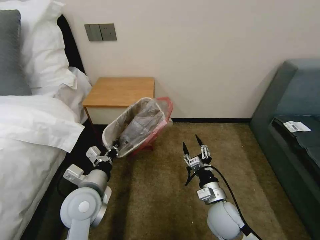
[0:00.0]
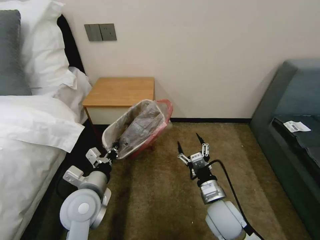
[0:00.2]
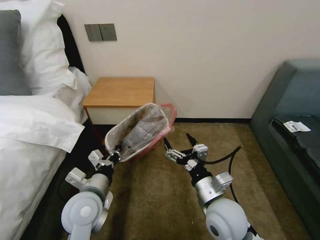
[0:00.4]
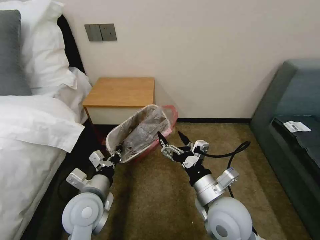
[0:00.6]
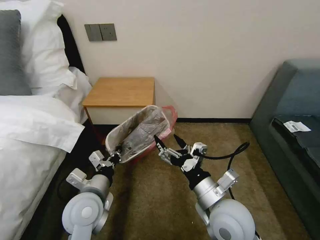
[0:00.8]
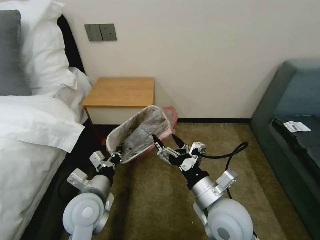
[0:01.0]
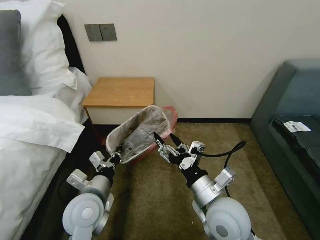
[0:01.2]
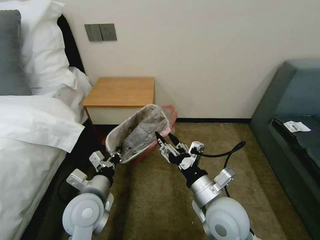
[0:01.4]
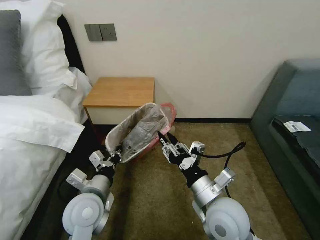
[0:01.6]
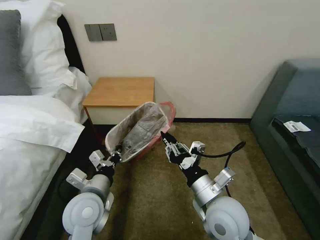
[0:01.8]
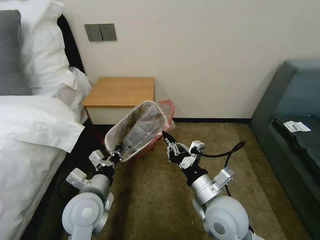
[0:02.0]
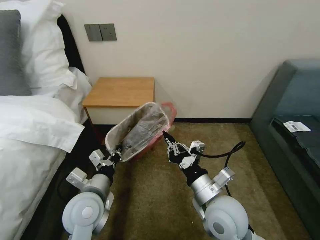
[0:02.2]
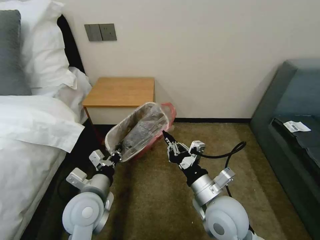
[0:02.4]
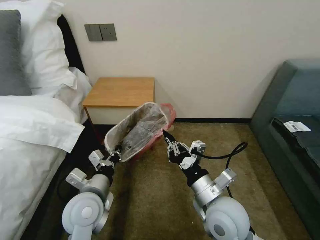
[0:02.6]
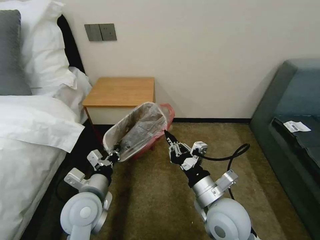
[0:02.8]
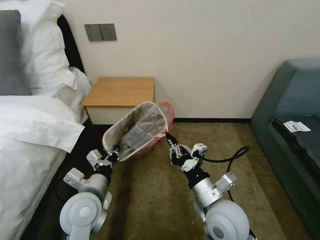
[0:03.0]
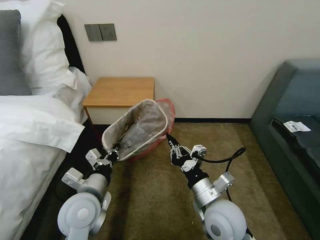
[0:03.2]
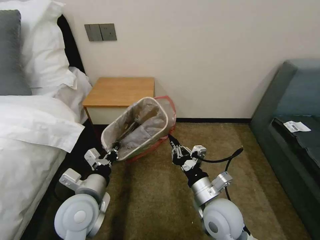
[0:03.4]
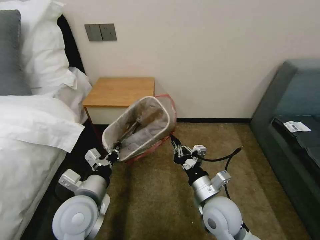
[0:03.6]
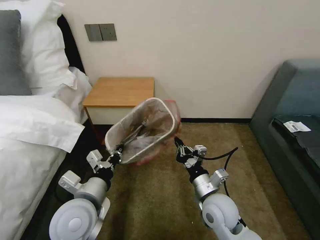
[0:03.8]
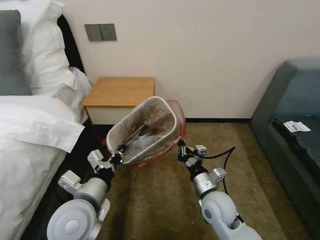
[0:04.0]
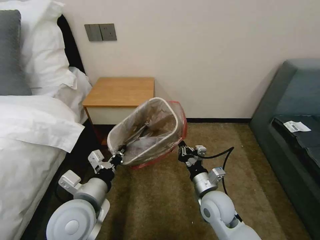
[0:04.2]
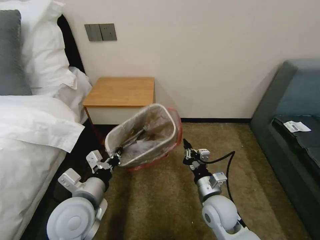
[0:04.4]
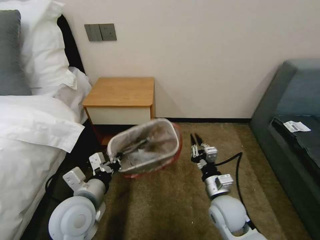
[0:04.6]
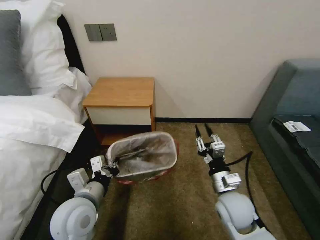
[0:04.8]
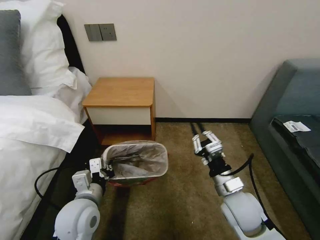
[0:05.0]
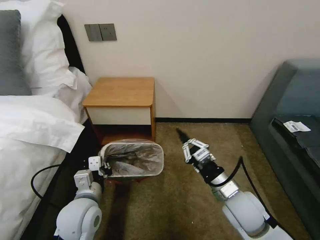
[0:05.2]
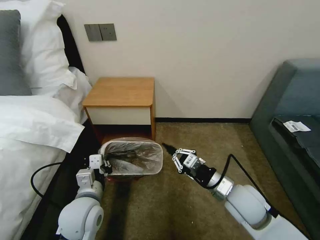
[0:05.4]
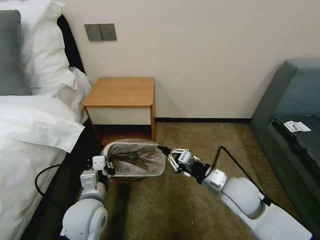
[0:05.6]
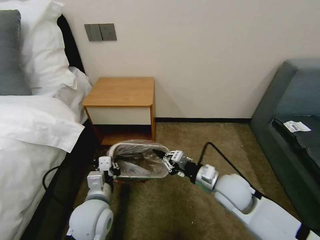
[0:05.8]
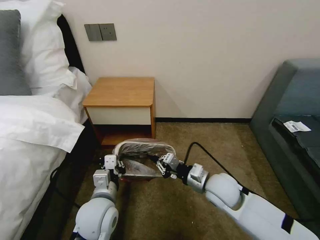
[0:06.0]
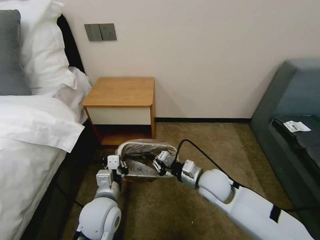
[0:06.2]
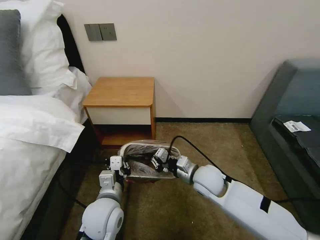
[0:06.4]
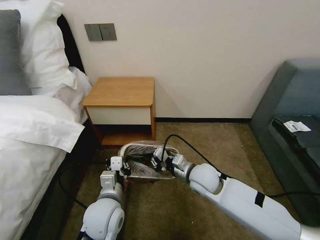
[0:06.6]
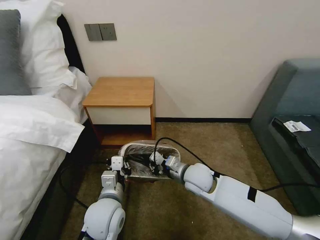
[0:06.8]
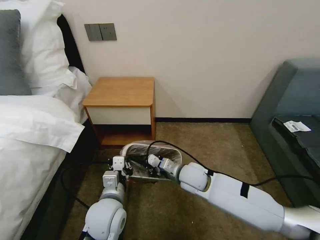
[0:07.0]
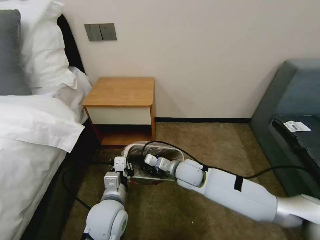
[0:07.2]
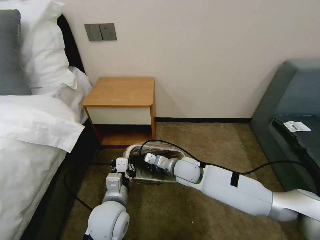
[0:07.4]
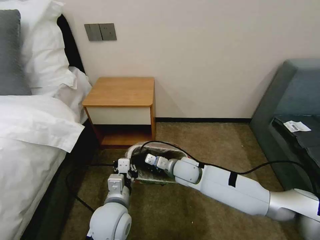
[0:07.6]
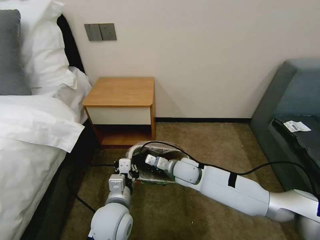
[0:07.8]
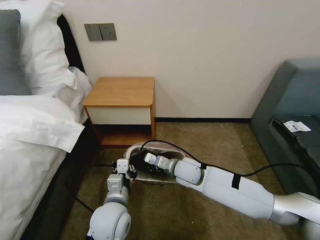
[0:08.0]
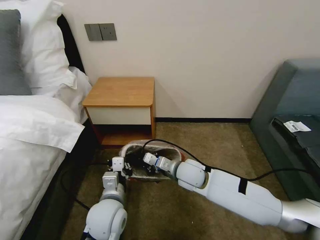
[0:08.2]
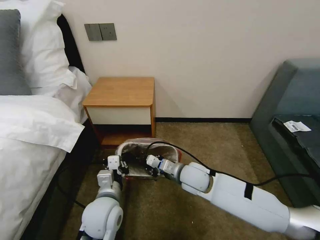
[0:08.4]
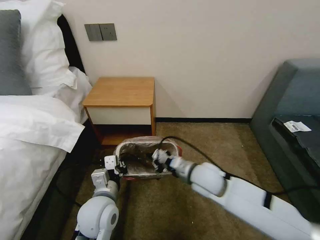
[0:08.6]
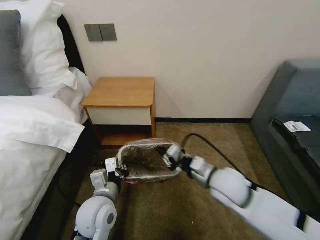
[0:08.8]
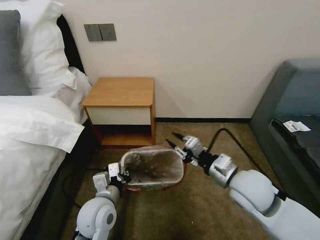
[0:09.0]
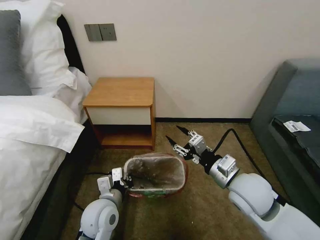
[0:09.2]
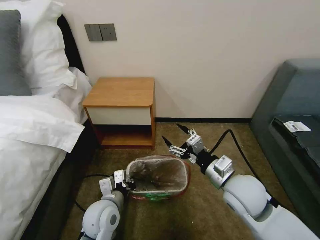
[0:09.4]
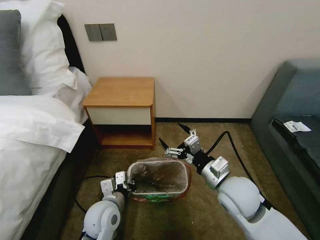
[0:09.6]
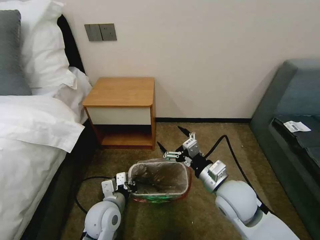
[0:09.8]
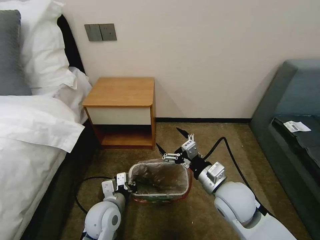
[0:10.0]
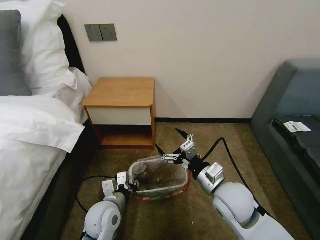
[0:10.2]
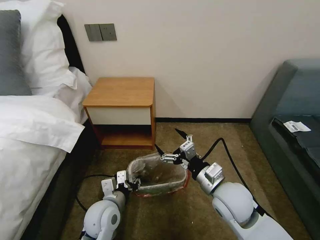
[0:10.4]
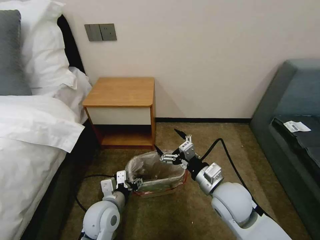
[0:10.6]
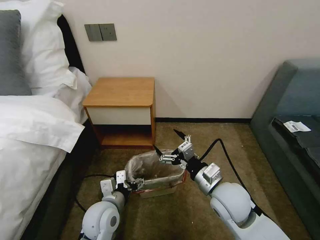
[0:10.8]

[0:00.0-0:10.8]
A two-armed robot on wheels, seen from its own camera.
Task of the whole recording: Pick up the garbage bag from the table and place it over the trash can.
0:00.0 to 0:01.6: The right gripper travels upward by roughly 10 cm, and opens and closes again.
0:01.6 to 0:03.0: The right gripper closes up.
0:03.0 to 0:04.6: The right gripper travels downward by about 10 cm.
0:04.6 to 0:06.2: The right gripper moves forward, some 5 cm. The left gripper shifts about 5 cm downward.
0:06.2 to 0:07.8: The right gripper heads to the left and forward, covering roughly 10 cm.
0:07.8 to 0:09.2: The right gripper heads to the right, upward and backward, covering about 20 cm, and opens up. The left gripper changes place by some 5 cm.
0:09.2 to 0:10.8: The left gripper opens; the right gripper moves some 5 cm, and opens up.

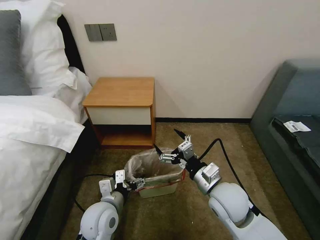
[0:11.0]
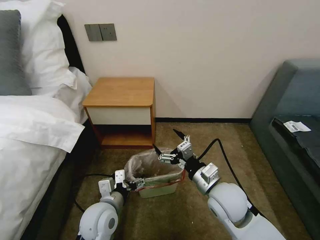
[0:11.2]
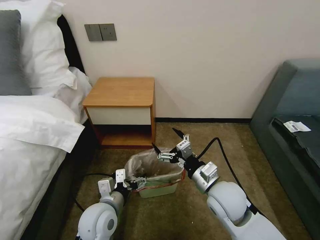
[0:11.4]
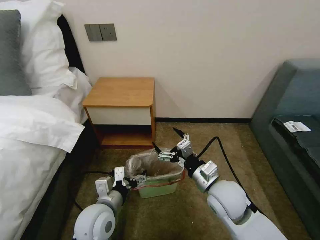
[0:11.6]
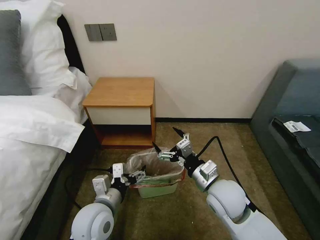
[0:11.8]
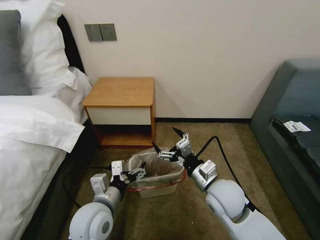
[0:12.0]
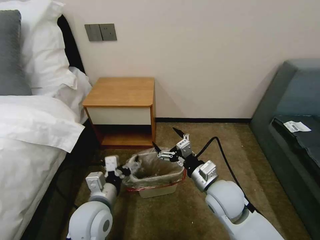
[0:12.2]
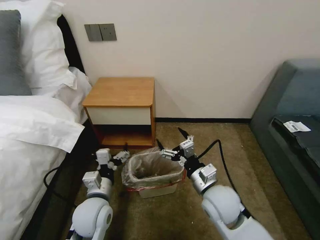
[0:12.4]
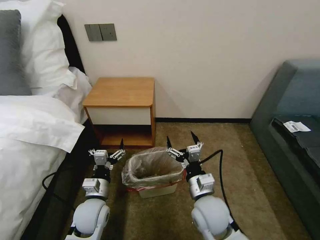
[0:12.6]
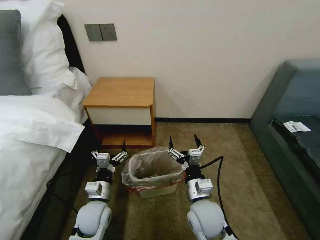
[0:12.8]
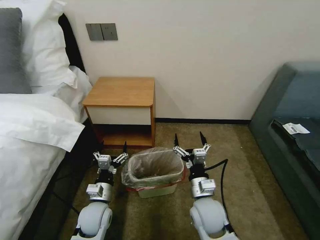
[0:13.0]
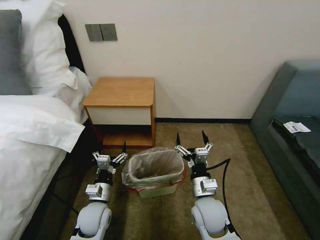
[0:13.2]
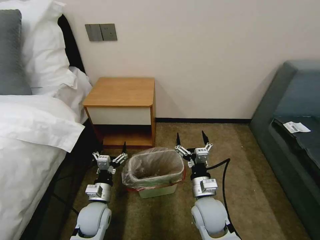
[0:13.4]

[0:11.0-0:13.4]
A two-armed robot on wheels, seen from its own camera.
Task of the whole recording: Pick up the garbage bag from the table and place it over the trash can.
0:11.0 to 0:12.2: The left gripper shifts approximately 5 cm upward.
0:12.2 to 0:13.4: The right gripper heads downward, covering approximately 10 cm; the left gripper shifts roughly 15 cm downward.

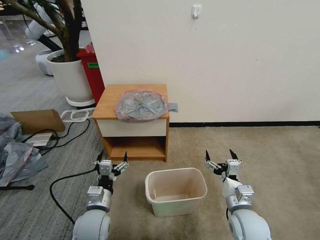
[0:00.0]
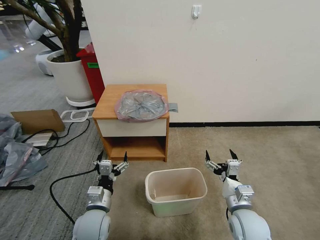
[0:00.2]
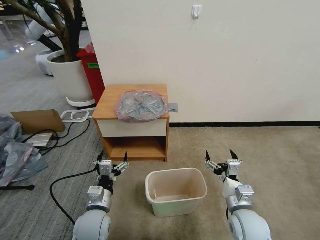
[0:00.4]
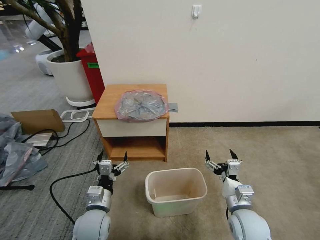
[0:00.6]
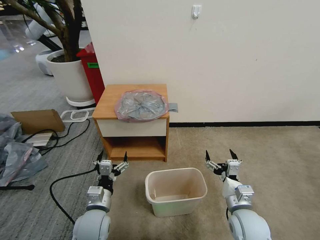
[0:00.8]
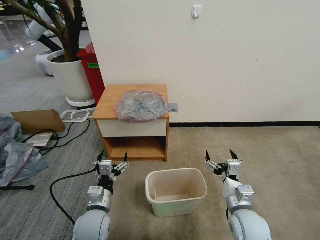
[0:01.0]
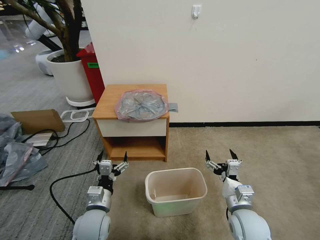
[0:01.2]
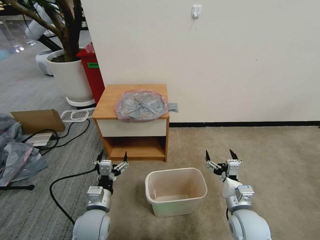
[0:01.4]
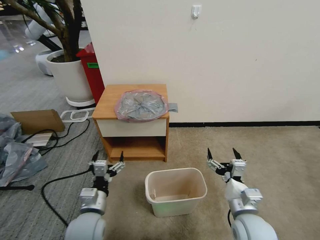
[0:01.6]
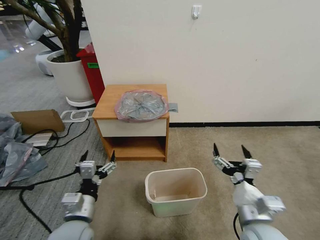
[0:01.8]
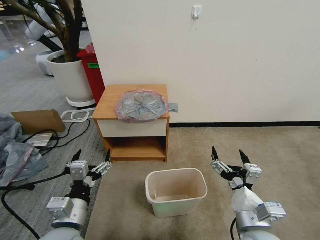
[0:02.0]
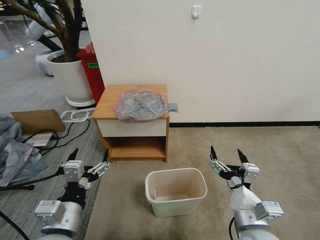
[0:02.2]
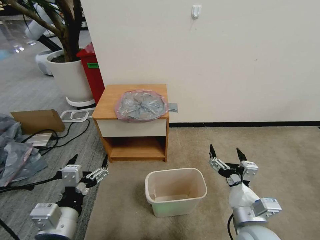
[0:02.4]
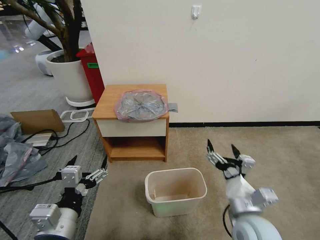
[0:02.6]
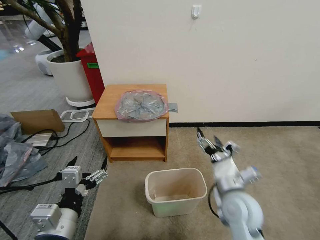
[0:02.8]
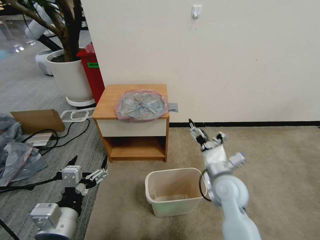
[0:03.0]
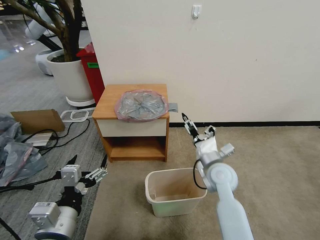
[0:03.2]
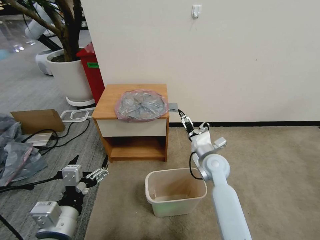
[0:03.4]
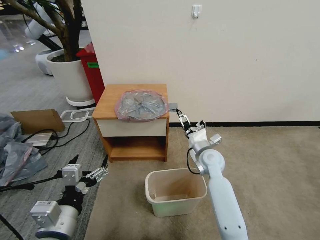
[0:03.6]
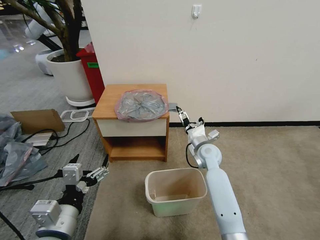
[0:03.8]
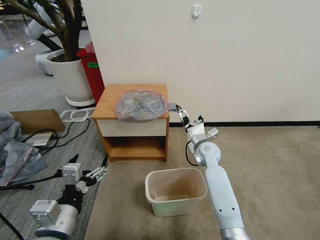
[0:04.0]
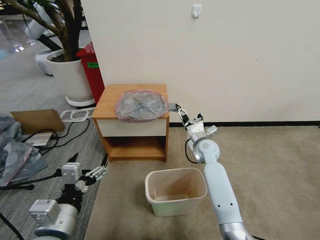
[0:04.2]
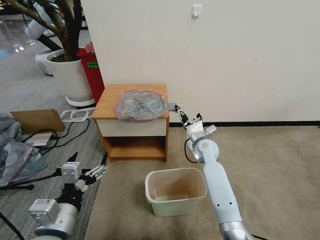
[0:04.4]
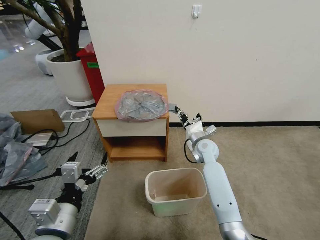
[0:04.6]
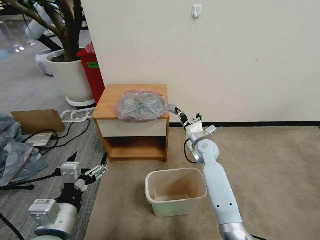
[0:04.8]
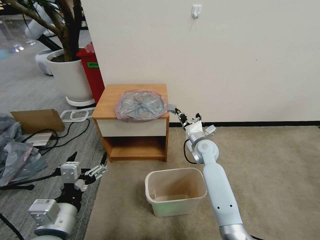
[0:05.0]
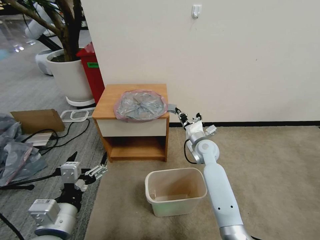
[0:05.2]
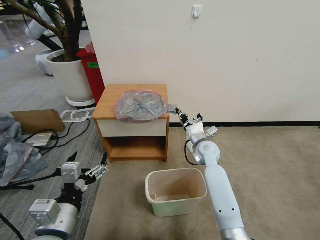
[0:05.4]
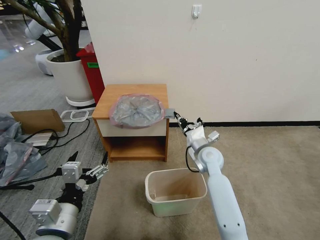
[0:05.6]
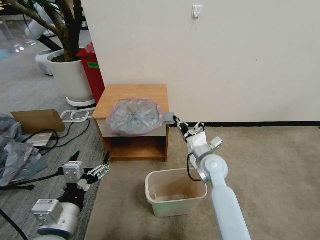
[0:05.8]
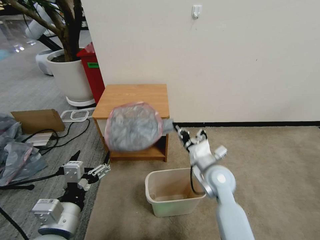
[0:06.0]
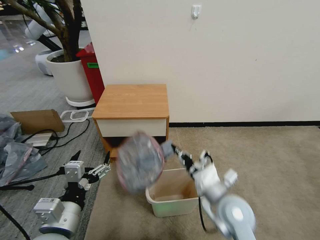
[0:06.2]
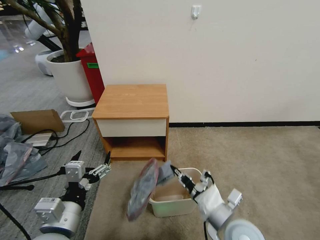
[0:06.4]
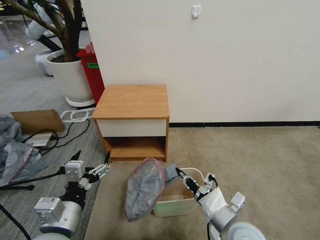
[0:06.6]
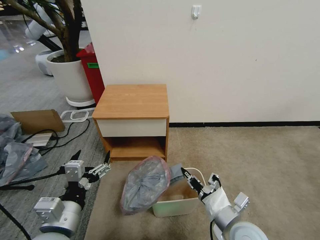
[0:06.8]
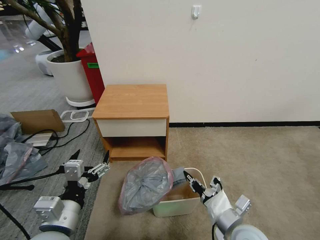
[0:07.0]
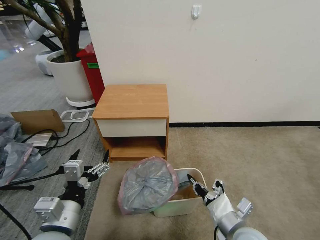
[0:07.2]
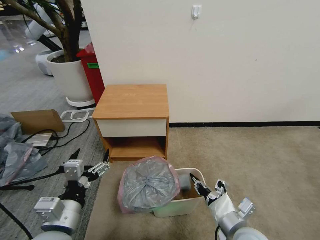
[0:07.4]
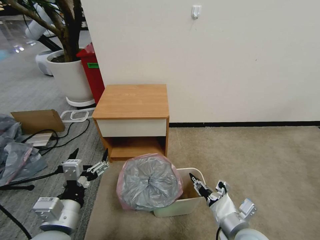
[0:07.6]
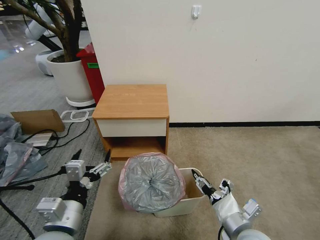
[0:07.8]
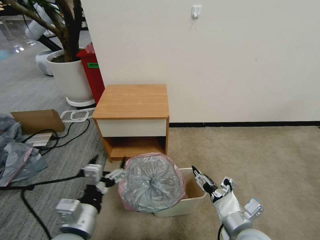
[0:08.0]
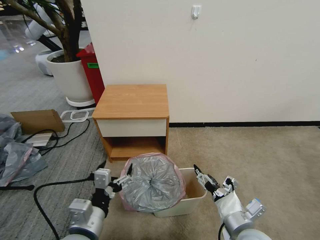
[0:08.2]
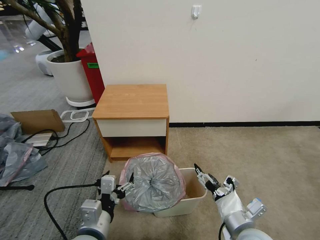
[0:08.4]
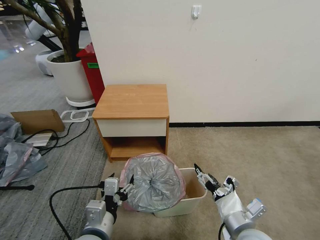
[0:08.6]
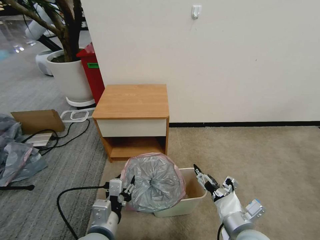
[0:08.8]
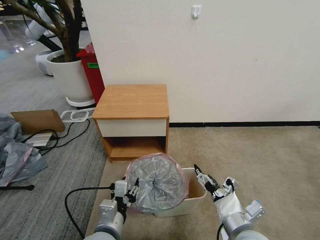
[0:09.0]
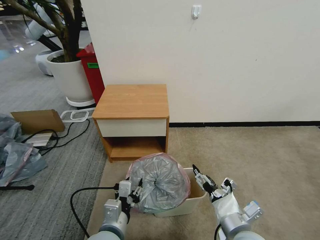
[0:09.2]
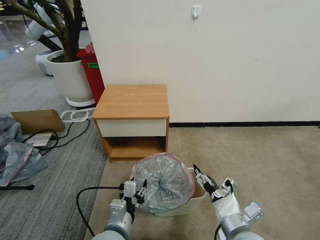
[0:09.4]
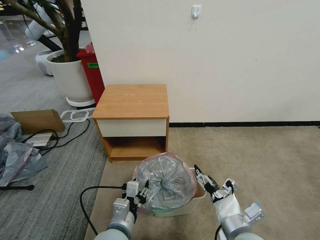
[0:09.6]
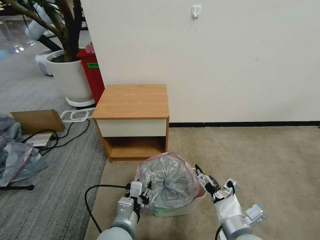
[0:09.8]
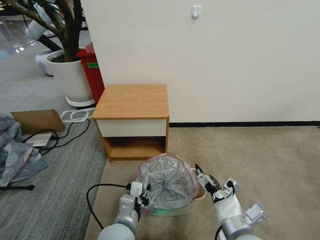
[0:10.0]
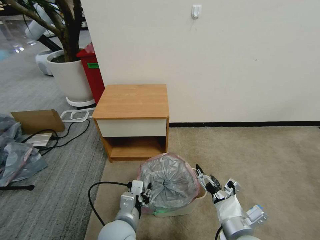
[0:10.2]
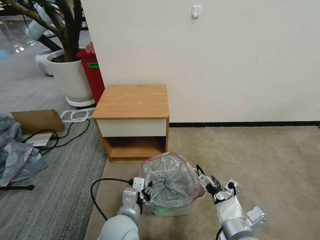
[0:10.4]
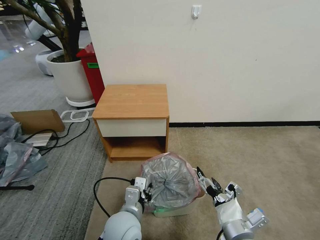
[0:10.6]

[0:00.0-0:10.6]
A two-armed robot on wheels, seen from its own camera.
Task of the whole recording: Pick up the garbage bag from the table and place it over the trash can.
0:01.6 to 0:03.0: The left gripper shifts roughly 15 cm upward and backward, while the right gripper goes about 10 cm forward.
0:03.0 to 0:04.6: The right gripper heads forward, covering about 15 cm, and closes.
0:04.6 to 0:06.0: The right gripper travels backward by about 15 cm.
0:06.0 to 0:07.6: The right gripper moves backward, approximately 15 cm.
0:07.6 to 0:09.0: The left gripper travels to the right and downward by about 10 cm, and closes. Meanwhile the right gripper opens up.
0:09.0 to 0:10.6: The left gripper moves roughly 5 cm.
